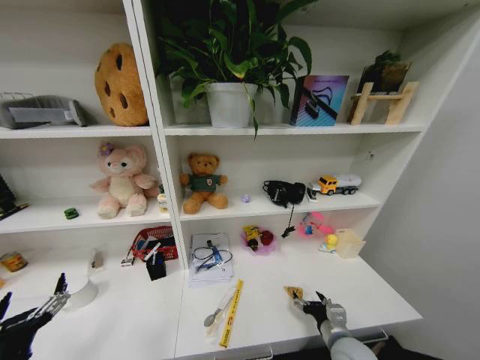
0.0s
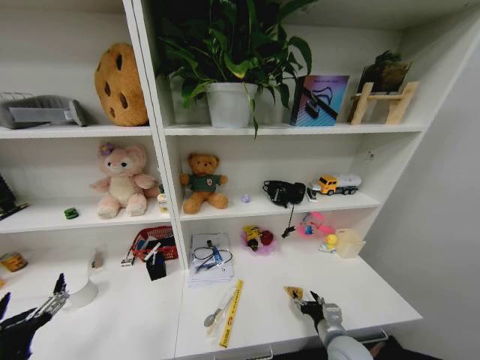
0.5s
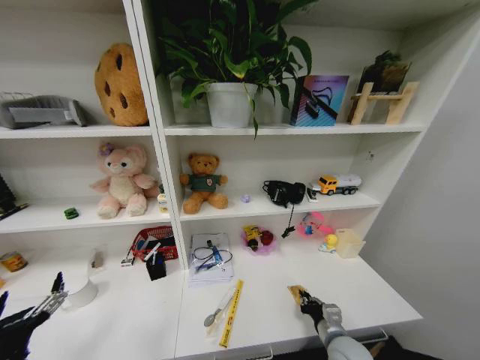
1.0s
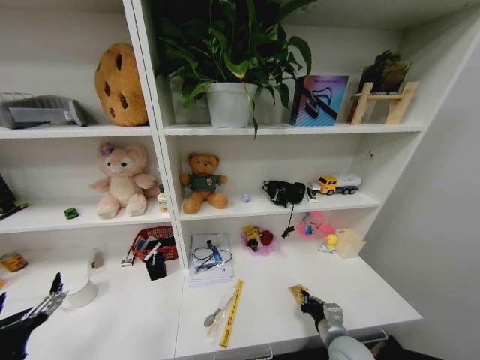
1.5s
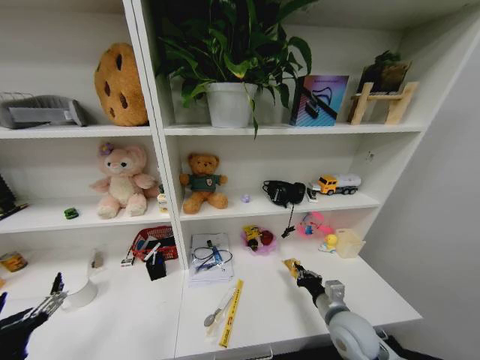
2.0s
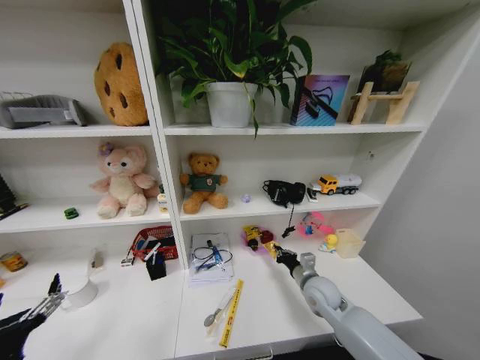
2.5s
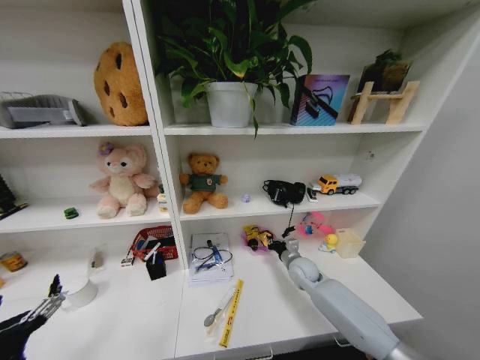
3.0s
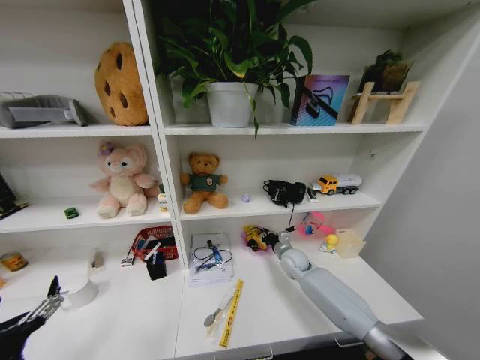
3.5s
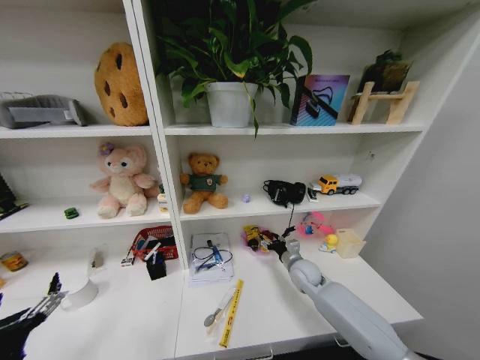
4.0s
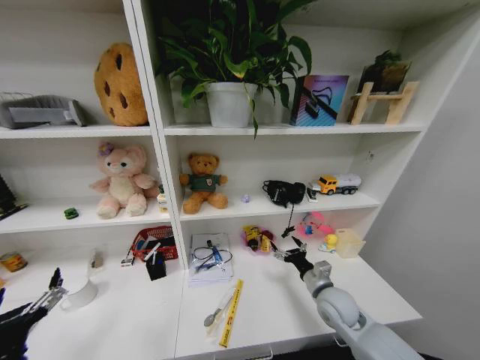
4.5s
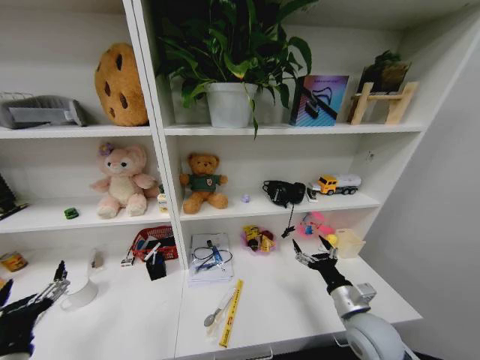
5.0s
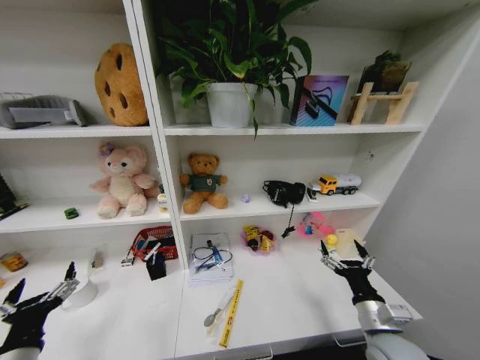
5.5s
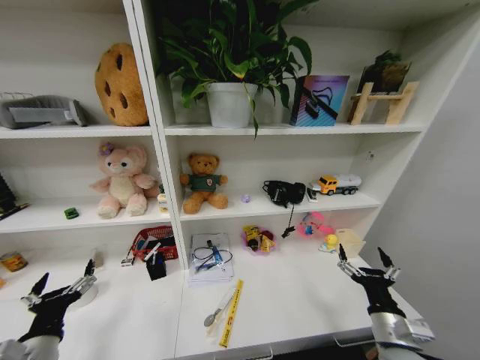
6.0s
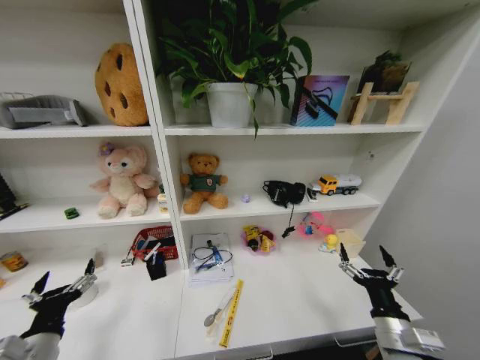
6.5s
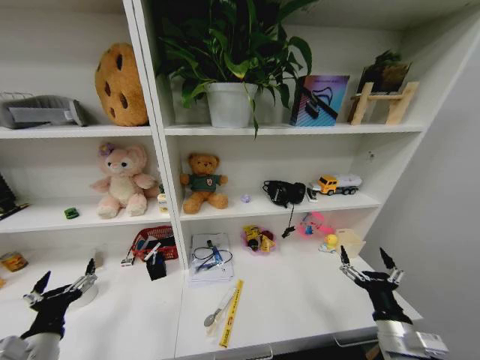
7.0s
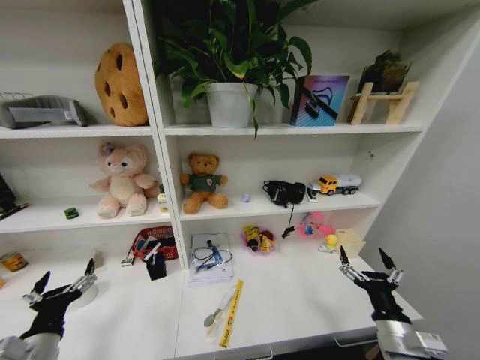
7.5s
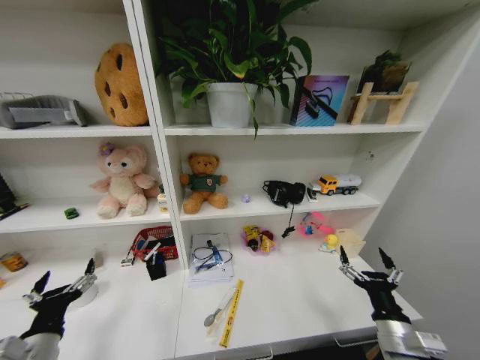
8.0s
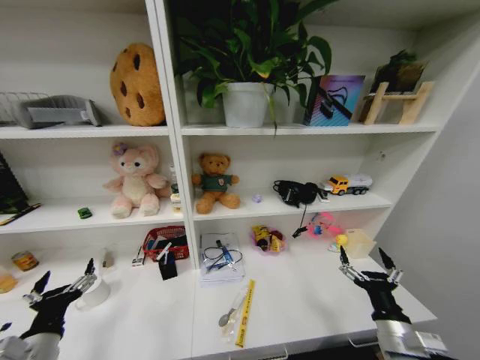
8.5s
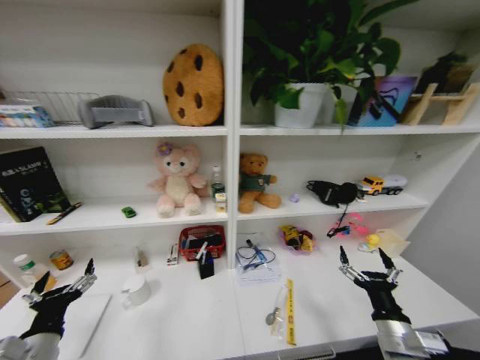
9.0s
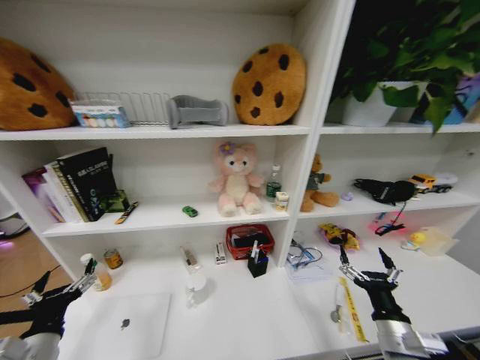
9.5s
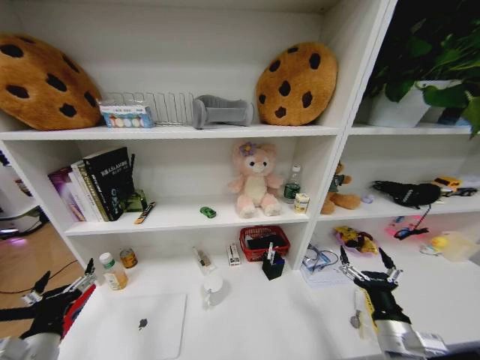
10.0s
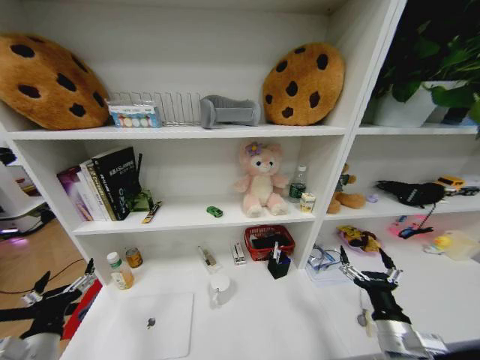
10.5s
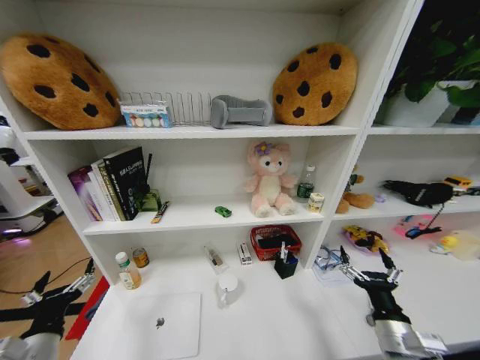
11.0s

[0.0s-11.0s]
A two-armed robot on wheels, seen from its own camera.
Task of the whole recording: Organize the objects on the table.
0.0s to 2.0s: The right gripper moves roughly 5 cm, and closes.
2.0s to 3.5s: The right gripper shifts roughly 25 cm forward.
3.5s to 5.5s: The right gripper is displaced backward by some 30 cm, and opens.
5.5s to 7.5s: There are only small adjustments of the grippers.
